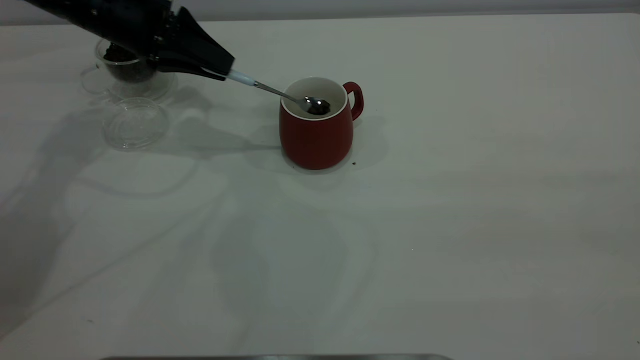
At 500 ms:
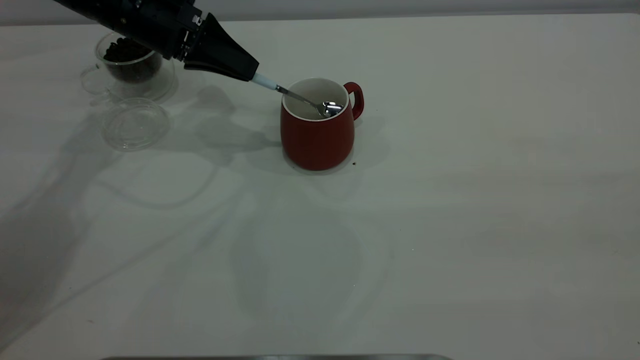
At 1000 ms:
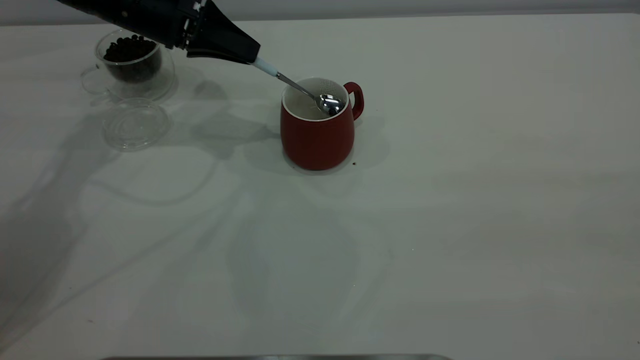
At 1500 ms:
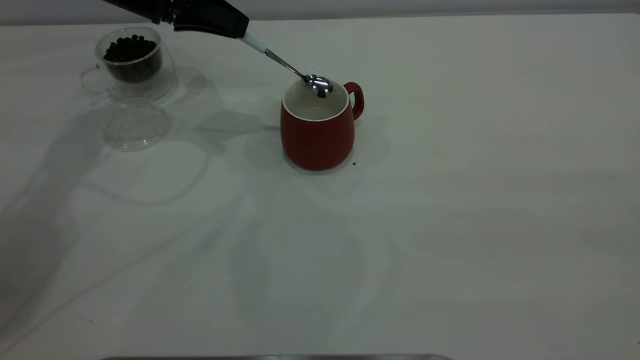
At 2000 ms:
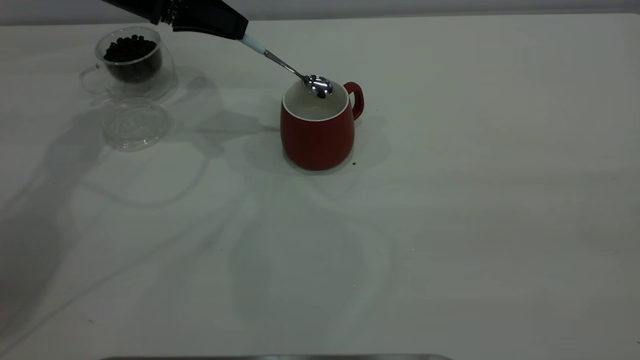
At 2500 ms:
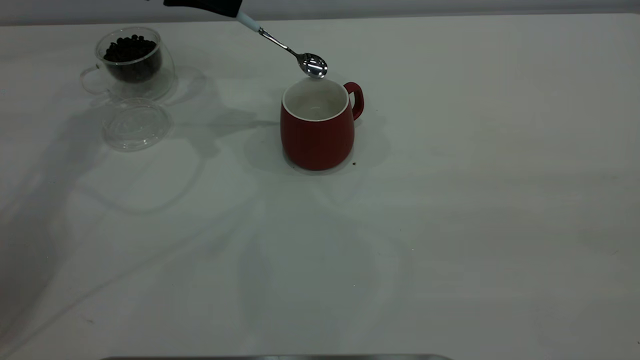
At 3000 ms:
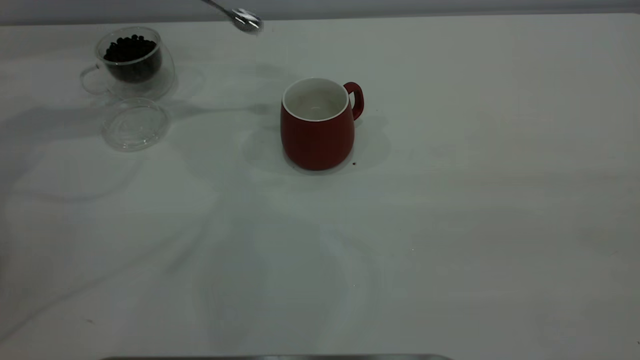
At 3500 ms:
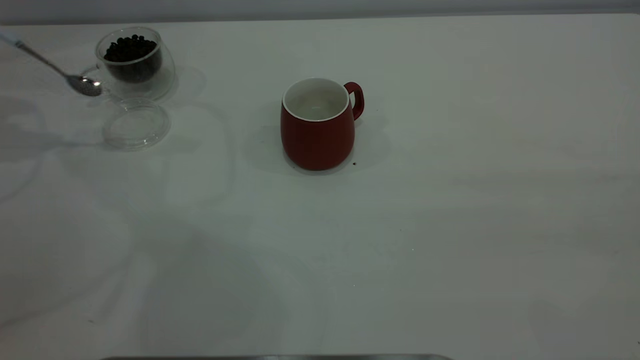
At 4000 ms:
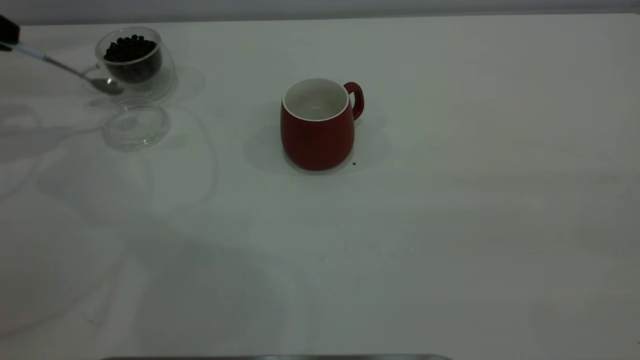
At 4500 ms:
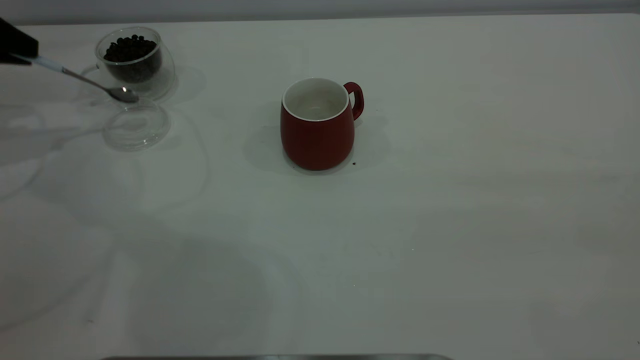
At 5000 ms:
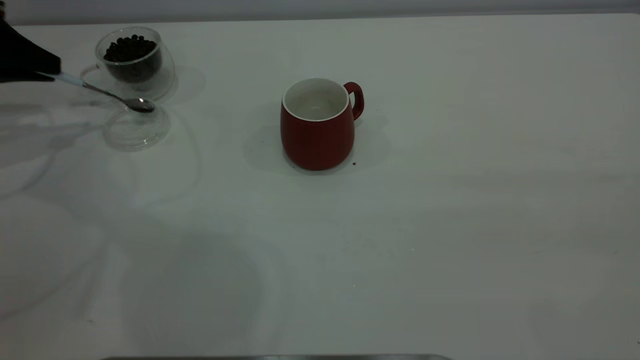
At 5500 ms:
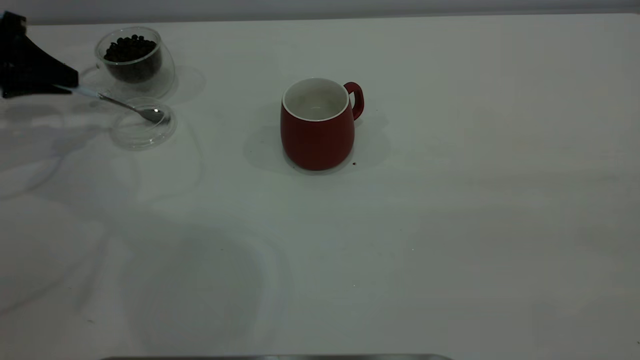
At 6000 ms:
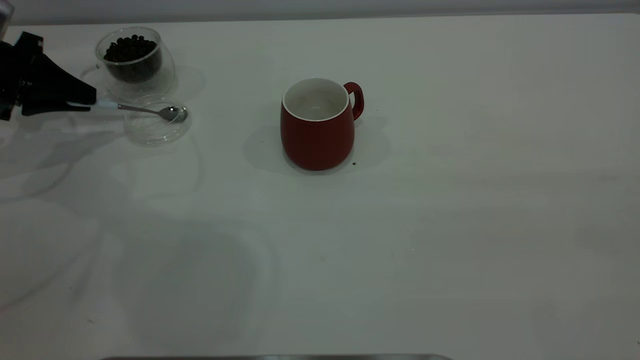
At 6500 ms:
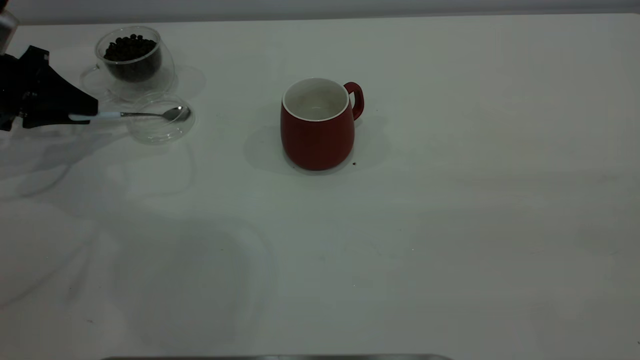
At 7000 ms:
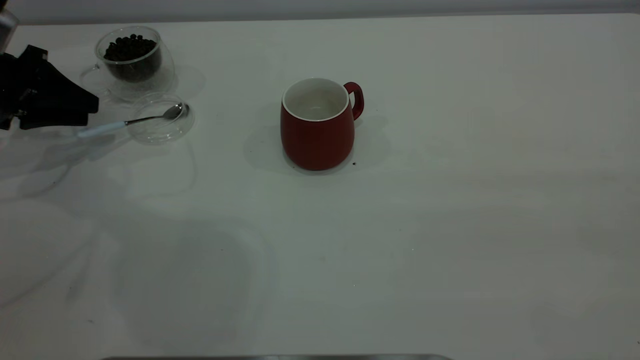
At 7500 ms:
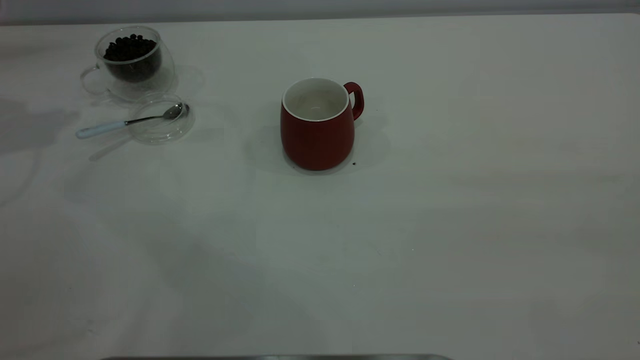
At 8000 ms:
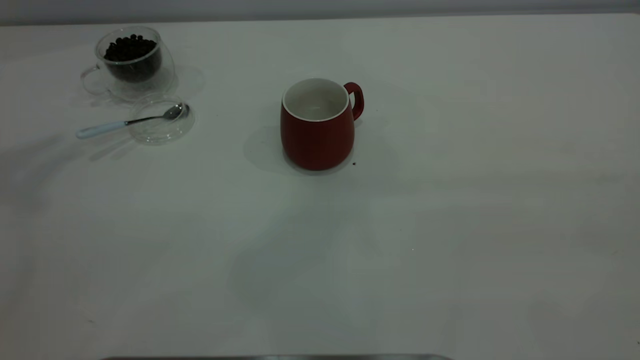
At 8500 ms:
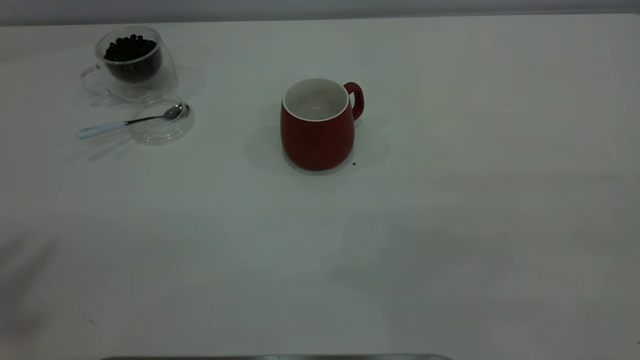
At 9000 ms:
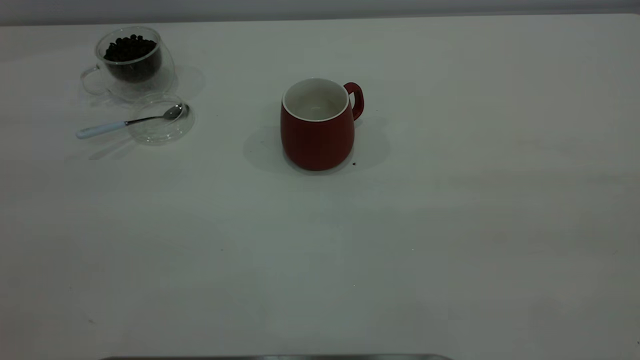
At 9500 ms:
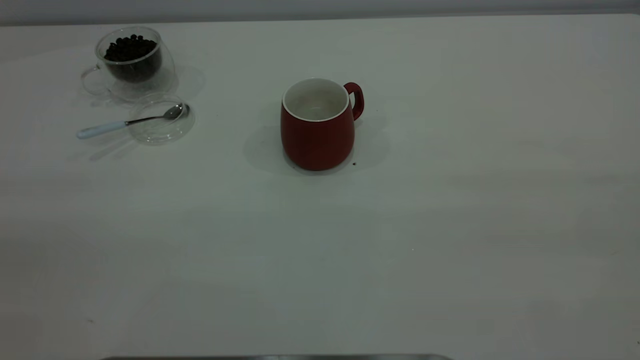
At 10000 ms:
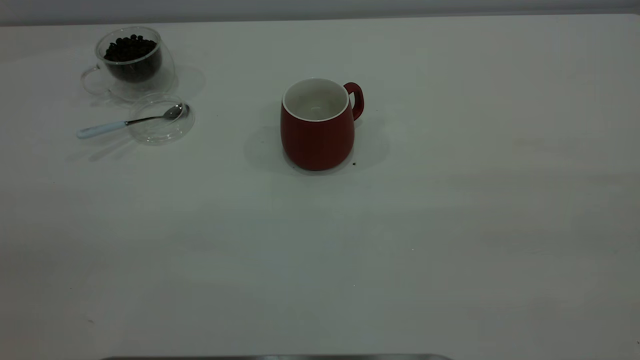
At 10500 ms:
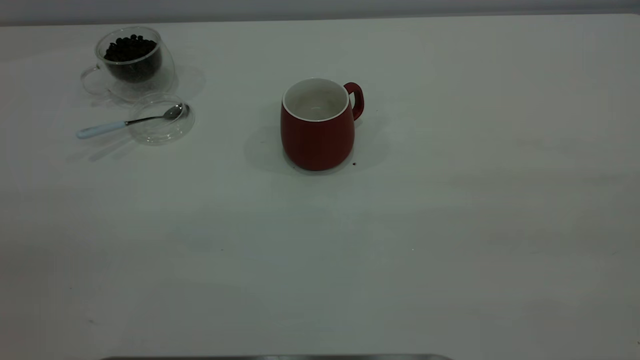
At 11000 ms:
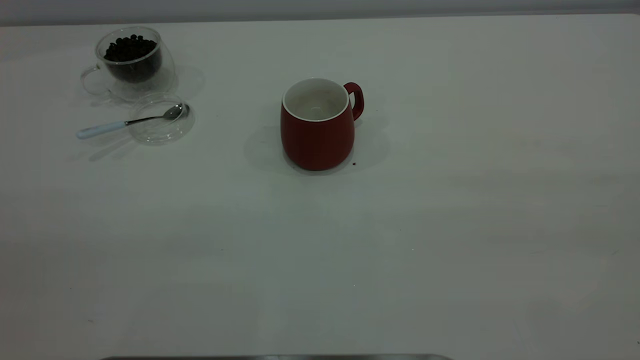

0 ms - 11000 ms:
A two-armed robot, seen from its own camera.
Task of the whole recording: the right gripper place the red cup in the center of the table, the left gripper take the blue spoon from the cup lid and scoop out the coffee beans from the coffee cup and put them into the red cup, the left gripper put the spoon back into the cup lid.
Step, 0 ms - 2500 ms: Scoop a spoonful of beans into the cup.
Step, 3000 ms - 7000 ms: Place the spoon back in its original place.
2000 ms - 3500 ms: The left gripper shifts roughly 25 cm to the left.
3500 ms - 5500 ms: The left gripper is displaced downward by about 10 cm.
5500 ms - 7500 ms: The left gripper moves upward, about 15 cm, and opens.
